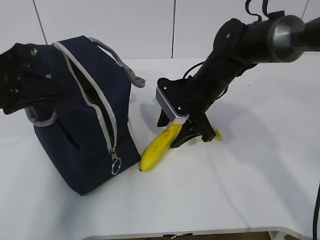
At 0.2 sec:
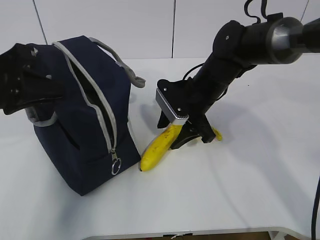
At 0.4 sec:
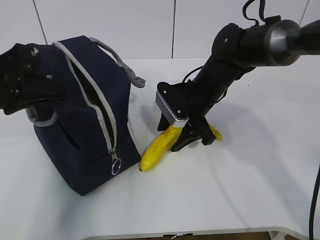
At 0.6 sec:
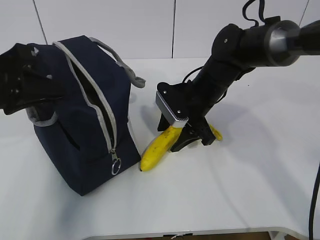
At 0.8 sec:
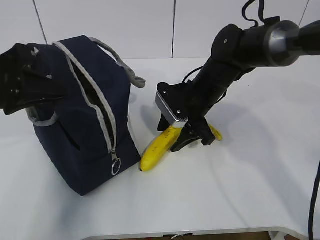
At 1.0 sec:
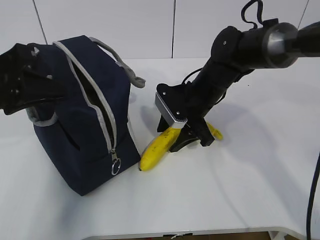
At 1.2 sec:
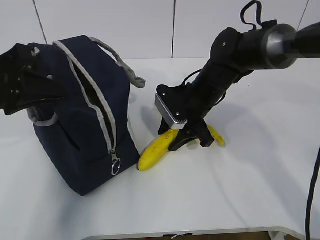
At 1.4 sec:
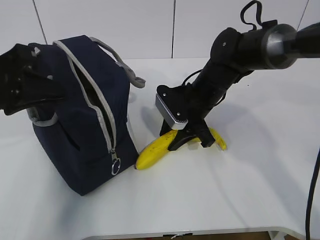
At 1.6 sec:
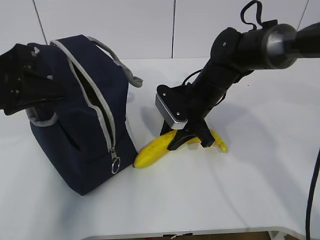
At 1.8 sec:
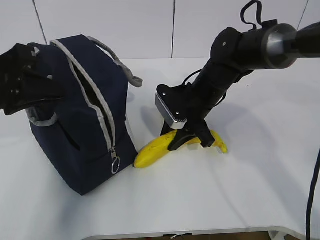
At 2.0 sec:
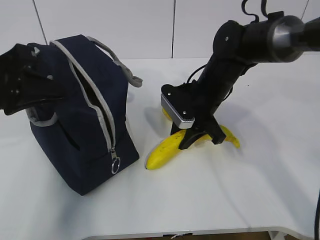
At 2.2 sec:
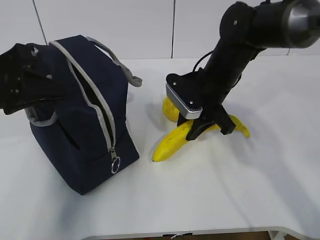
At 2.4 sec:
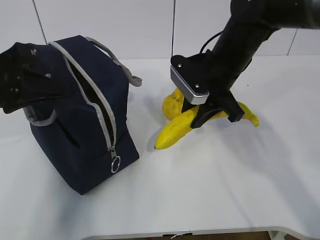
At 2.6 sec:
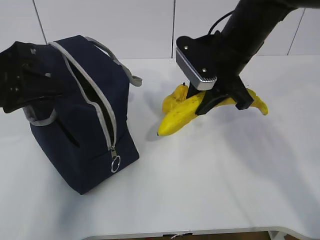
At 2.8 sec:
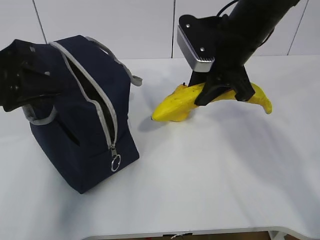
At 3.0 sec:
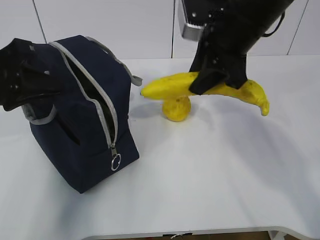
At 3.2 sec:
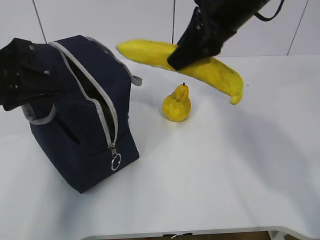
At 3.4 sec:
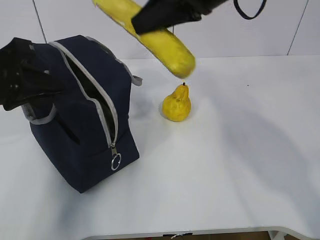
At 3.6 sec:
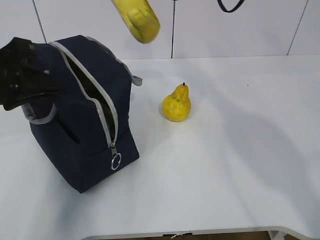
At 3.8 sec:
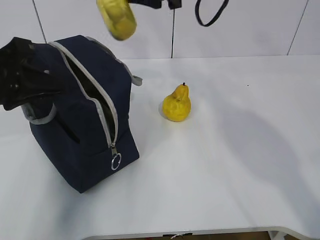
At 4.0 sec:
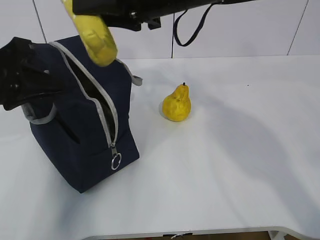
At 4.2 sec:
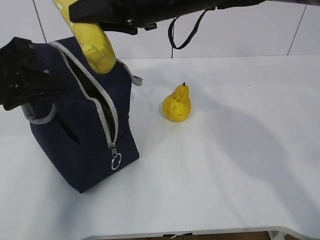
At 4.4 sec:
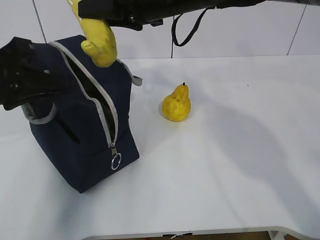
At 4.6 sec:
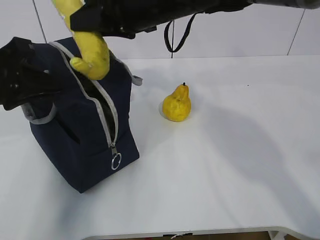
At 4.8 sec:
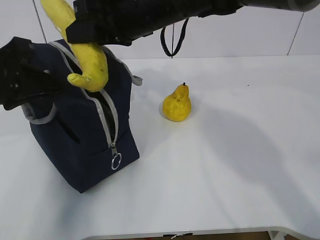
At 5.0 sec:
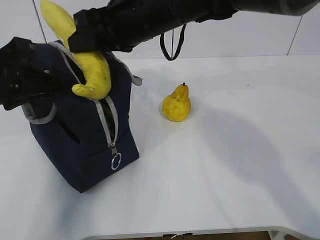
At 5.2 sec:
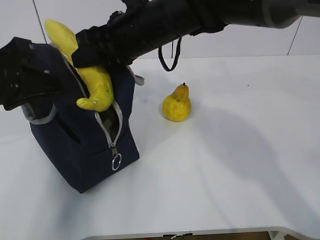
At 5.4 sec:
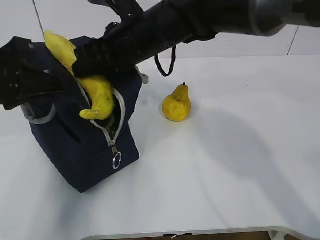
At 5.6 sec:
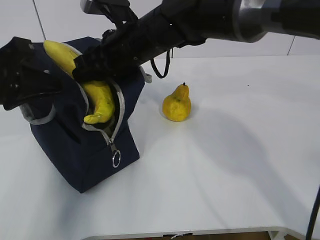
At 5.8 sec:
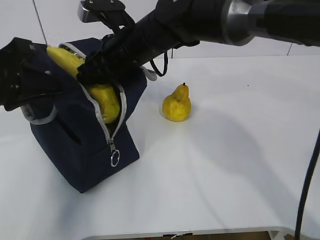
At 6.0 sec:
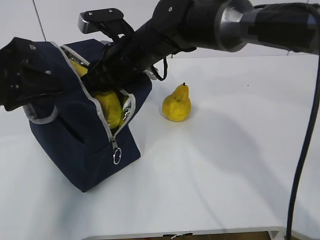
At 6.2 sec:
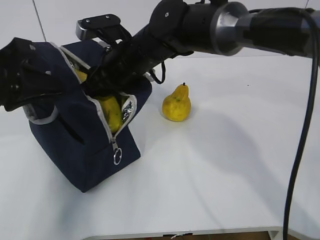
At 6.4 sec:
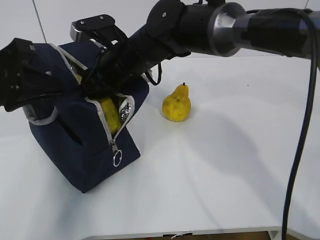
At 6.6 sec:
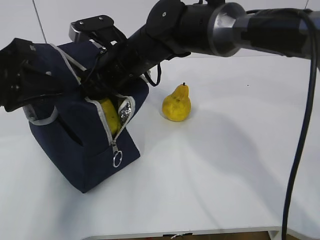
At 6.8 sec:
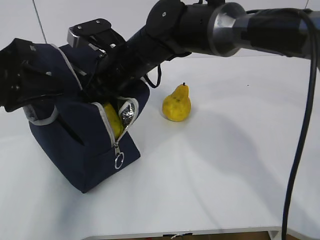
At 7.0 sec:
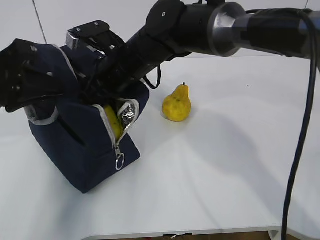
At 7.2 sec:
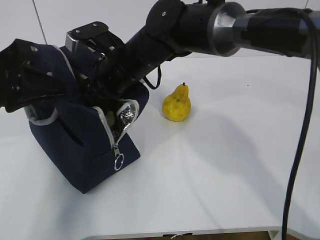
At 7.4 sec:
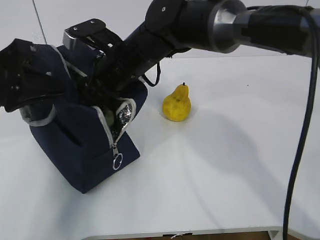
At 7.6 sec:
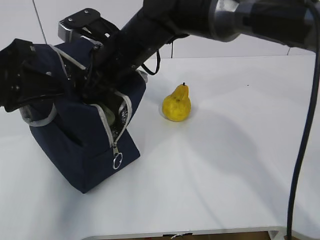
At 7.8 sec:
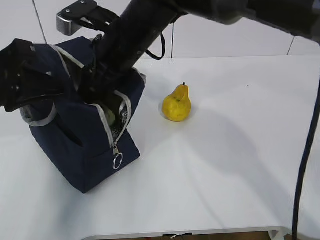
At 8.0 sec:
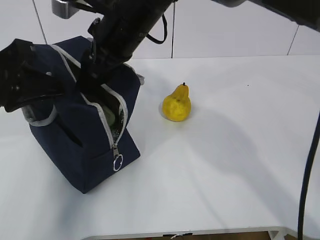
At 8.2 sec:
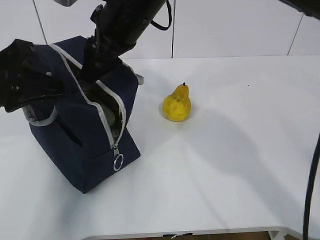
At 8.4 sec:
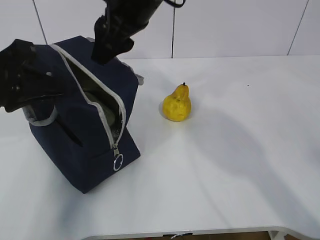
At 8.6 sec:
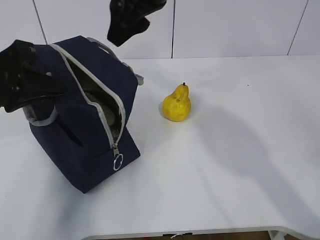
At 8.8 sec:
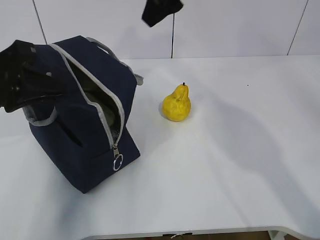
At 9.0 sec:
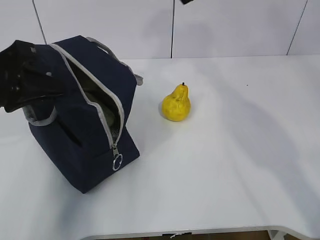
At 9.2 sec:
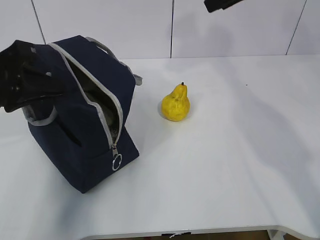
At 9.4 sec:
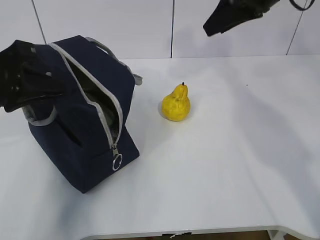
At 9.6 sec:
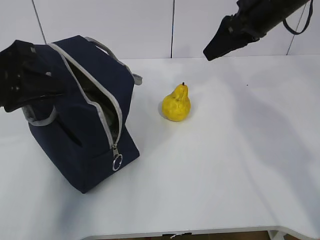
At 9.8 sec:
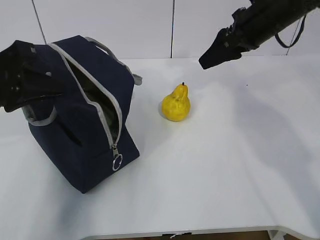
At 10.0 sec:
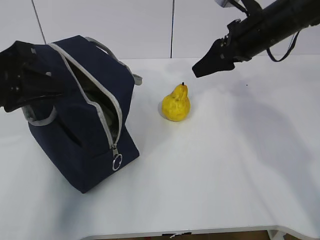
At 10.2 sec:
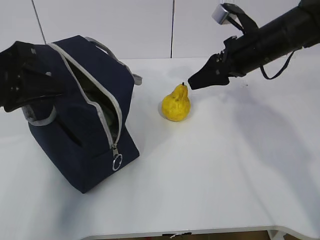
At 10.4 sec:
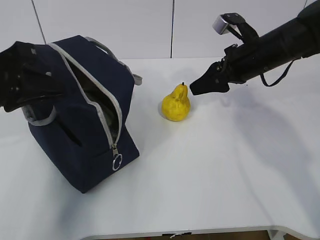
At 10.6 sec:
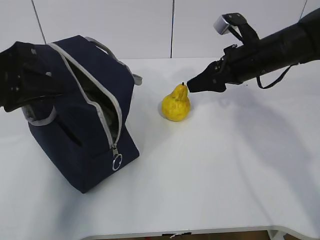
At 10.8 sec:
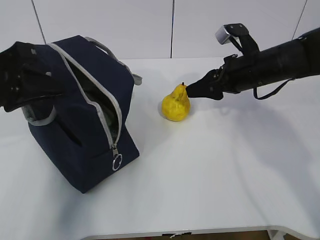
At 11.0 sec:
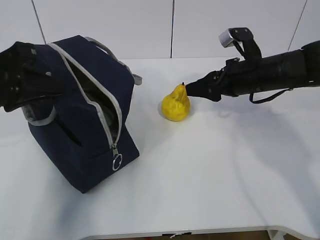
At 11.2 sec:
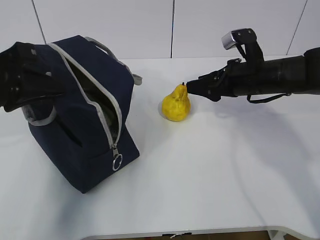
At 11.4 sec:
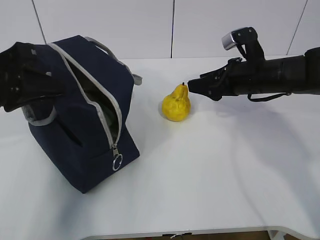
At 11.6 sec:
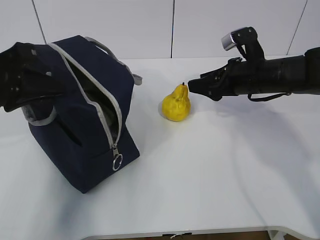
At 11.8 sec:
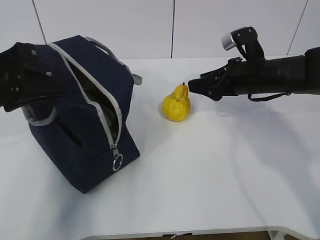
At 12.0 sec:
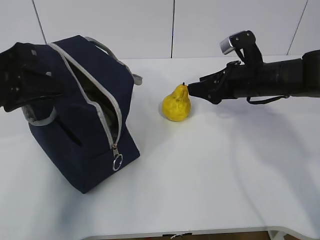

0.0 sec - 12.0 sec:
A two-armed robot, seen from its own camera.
Step, 1.8 sec - 7.6 sec: Place the banana into the package with the right gripper.
0.0 sec - 1.6 sec: The right gripper closes up.
1.6 sec - 3.0 sec: The right gripper shifts some 15 cm upward.
3.0 sec - 4.4 sec: The right gripper moves to the left, approximately 10 cm.
4.4 sec - 6.0 sec: The right gripper moves downward and to the left, about 10 cm.
6.0 sec - 7.6 sec: The grippers stay close to where they were, moving slightly.
7.6 sec - 9.0 sec: The right gripper is displaced to the right and upward by some 25 cm.
9.0 sec - 10.4 sec: The right gripper moves downward, about 15 cm.

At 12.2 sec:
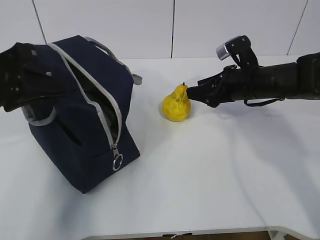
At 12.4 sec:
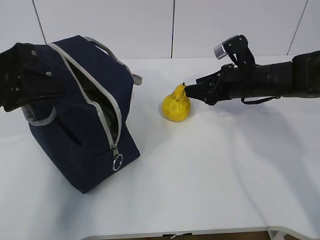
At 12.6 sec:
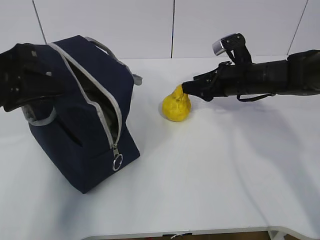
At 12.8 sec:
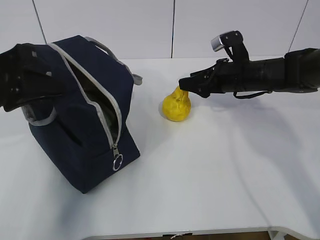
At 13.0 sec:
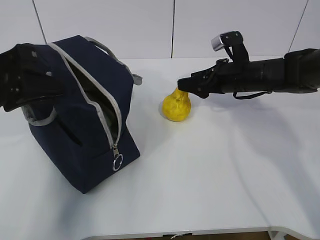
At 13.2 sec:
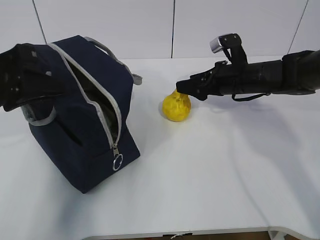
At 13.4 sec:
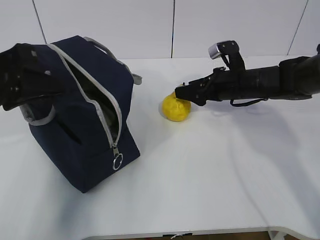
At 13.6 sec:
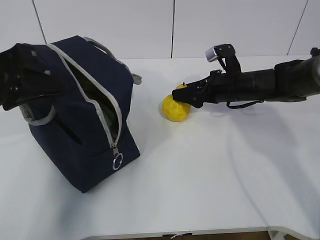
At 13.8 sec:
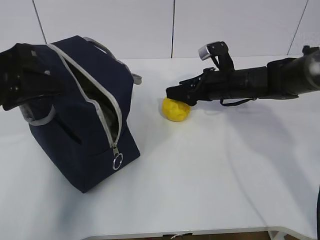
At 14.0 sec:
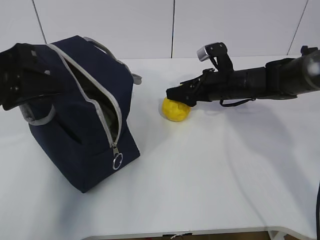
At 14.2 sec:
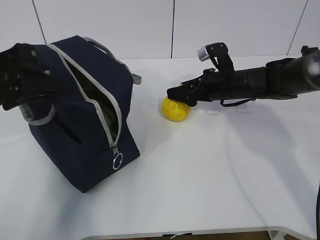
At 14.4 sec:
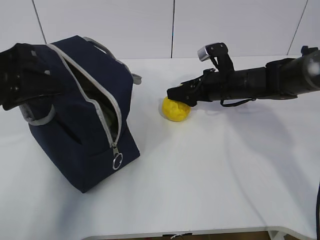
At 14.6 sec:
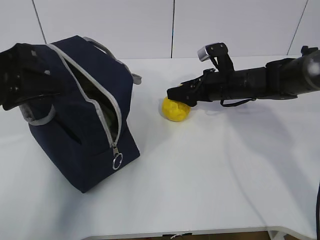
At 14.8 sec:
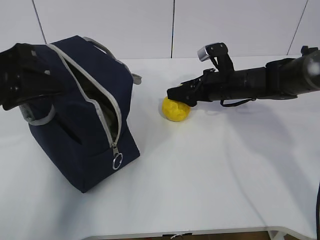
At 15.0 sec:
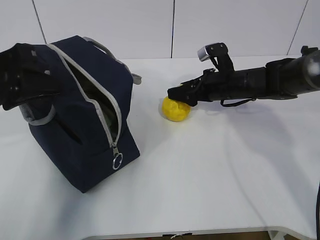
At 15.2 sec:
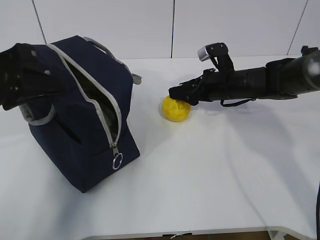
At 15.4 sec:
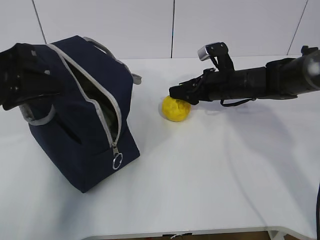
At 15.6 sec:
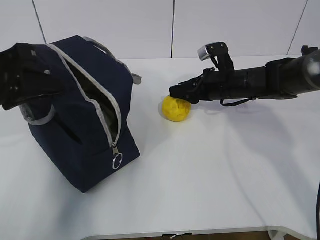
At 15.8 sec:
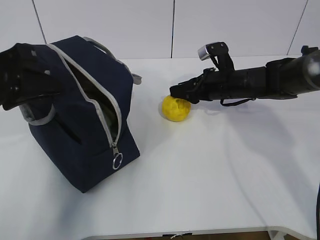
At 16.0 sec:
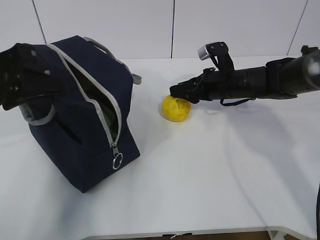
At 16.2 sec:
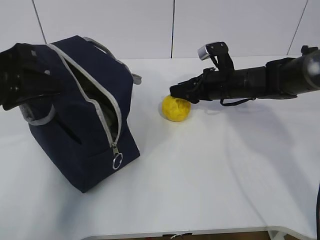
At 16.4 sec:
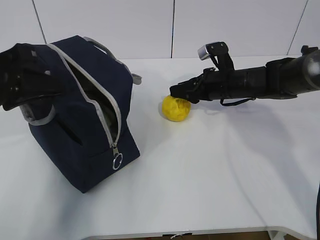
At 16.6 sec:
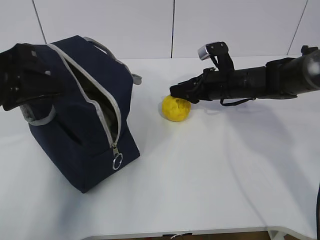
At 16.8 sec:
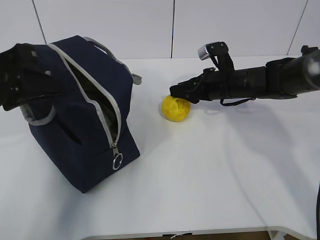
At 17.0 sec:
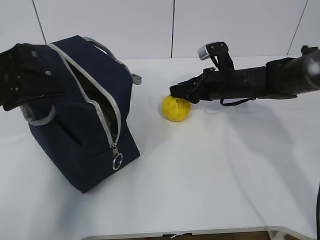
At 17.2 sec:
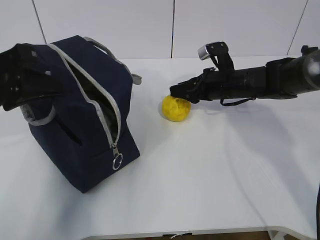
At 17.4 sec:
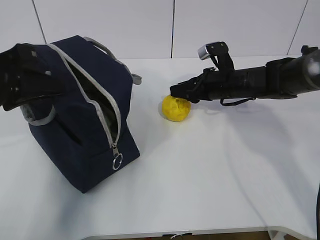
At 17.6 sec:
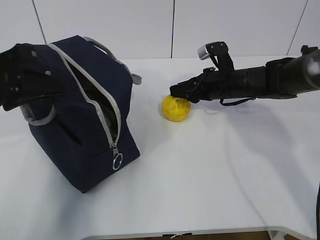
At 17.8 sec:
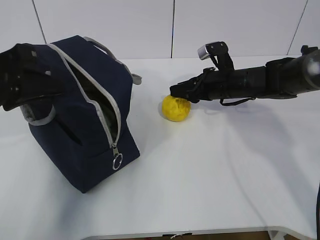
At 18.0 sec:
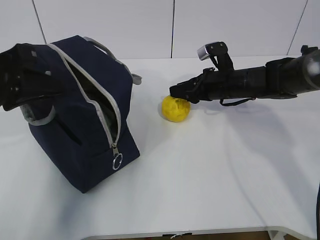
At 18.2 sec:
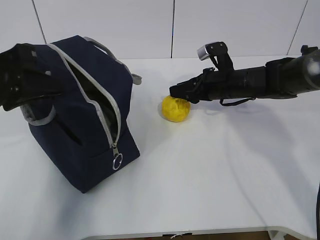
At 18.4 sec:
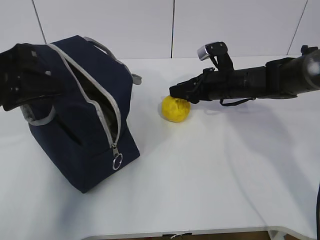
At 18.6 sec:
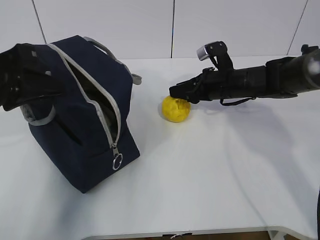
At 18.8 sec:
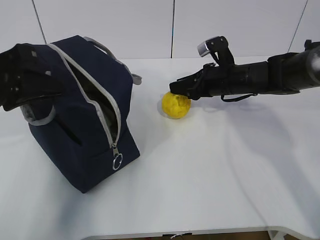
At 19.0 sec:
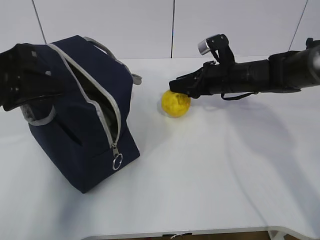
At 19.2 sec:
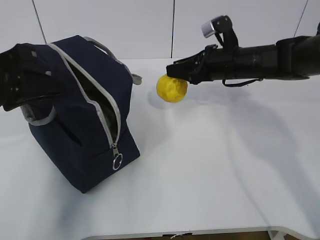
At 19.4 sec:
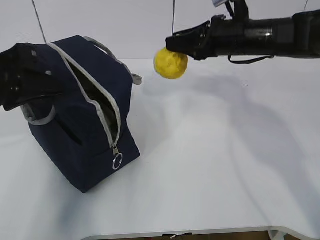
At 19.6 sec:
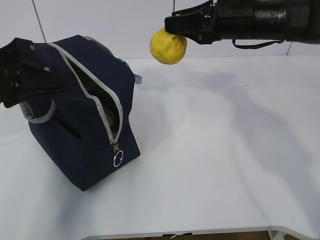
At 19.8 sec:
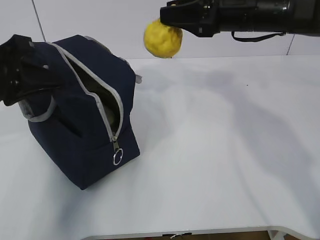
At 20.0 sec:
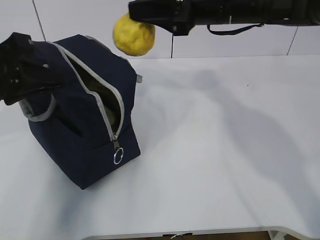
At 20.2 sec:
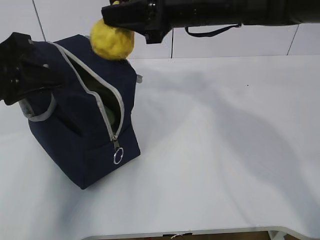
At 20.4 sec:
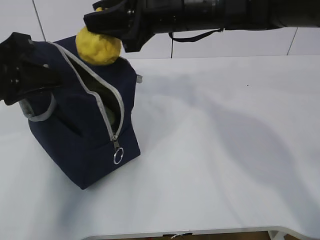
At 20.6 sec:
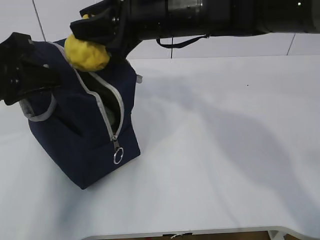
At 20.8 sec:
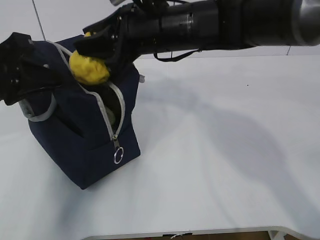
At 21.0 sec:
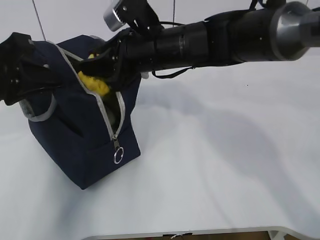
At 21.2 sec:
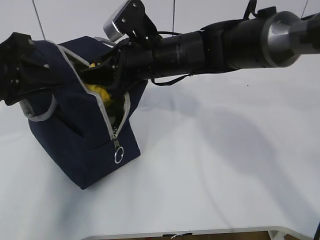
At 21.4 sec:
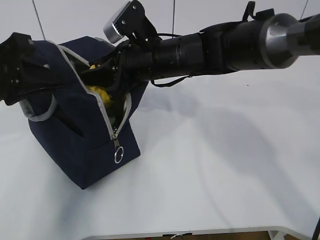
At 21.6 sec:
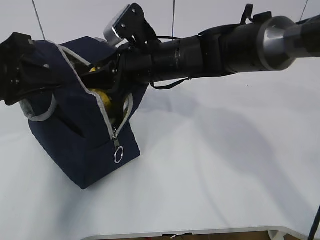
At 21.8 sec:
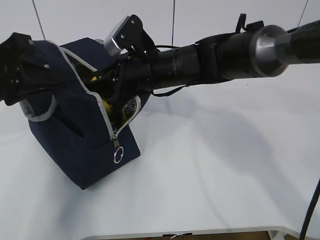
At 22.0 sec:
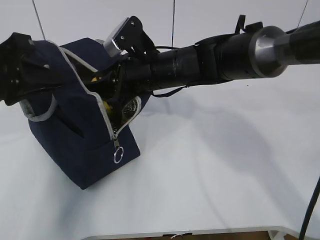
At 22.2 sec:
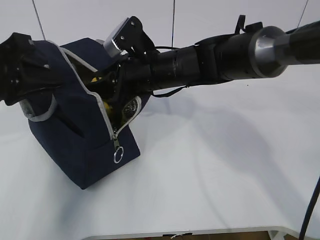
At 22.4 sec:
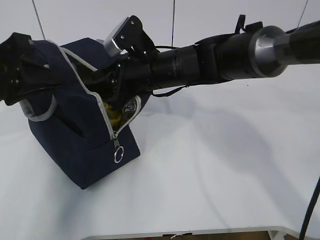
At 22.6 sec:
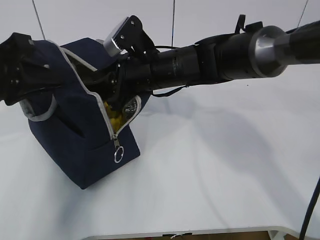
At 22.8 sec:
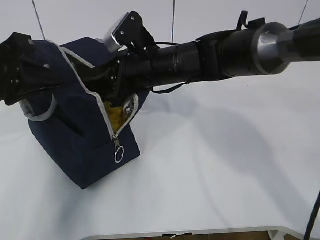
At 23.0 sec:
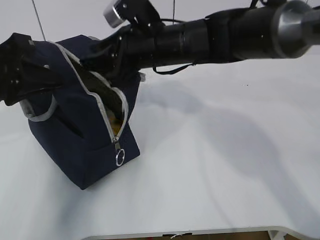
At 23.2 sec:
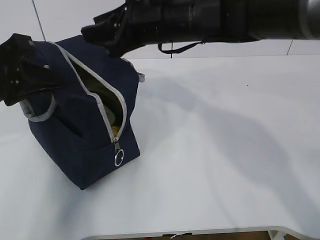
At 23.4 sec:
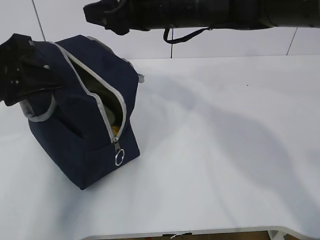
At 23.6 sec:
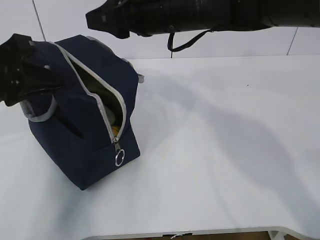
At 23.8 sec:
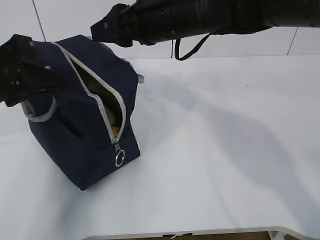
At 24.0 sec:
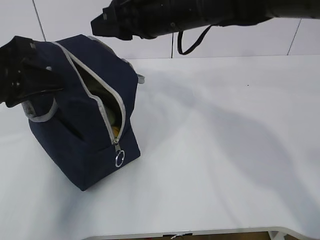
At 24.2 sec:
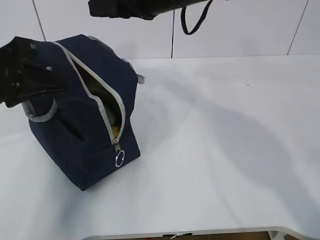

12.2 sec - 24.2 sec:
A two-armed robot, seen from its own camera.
Step, 12.2 sec - 16.8 sec: Grasp the pear with the right gripper.
Step, 17.2 sec - 22.8 sec: Place the pear into the package with the right gripper.
12.2 sec - 13.8 sec: The right gripper changes place by roughly 5 cm.
13.8 sec - 18.2 sec: Neither gripper changes place.
18.2 sec - 19.8 sec: The right gripper goes some 15 cm upward.
19.8 sec - 21.2 sec: The right gripper shifts roughly 15 cm to the left and downward.
21.2 sec - 22.6 sec: The grippers make only small movements.
22.6 sec - 24.2 sec: The right gripper is displaced upward by some 15 cm.
